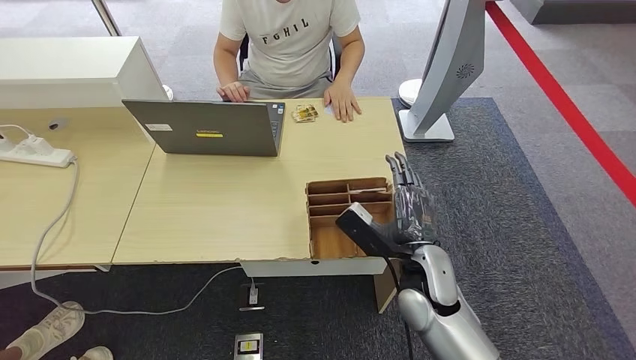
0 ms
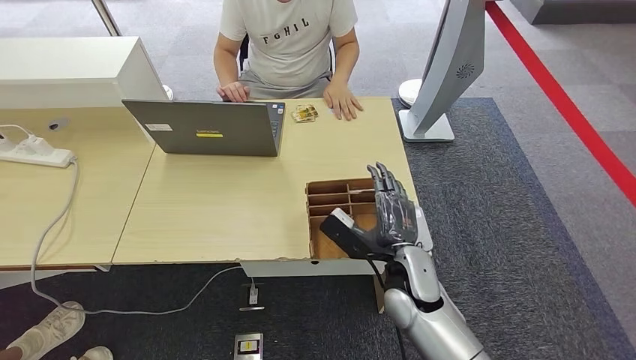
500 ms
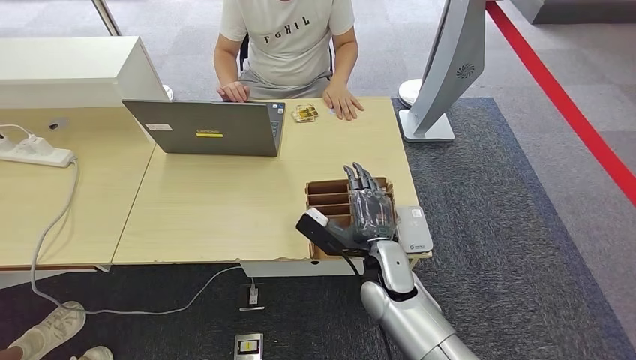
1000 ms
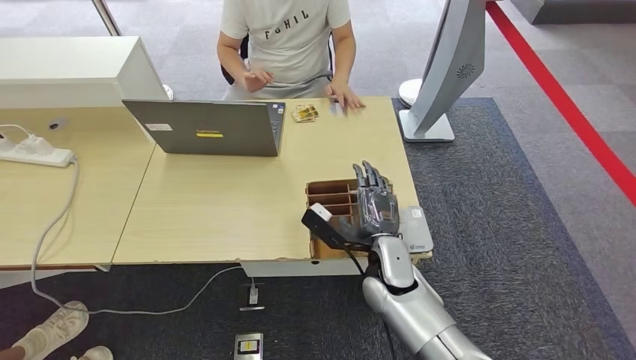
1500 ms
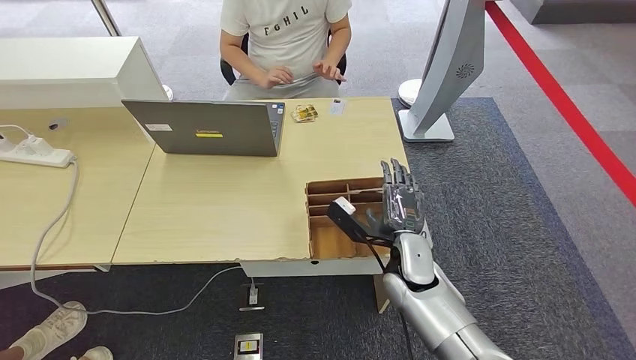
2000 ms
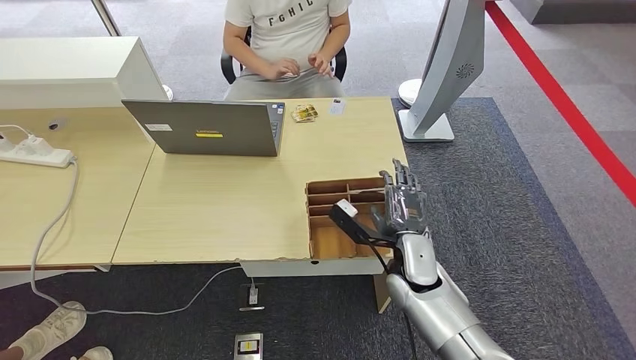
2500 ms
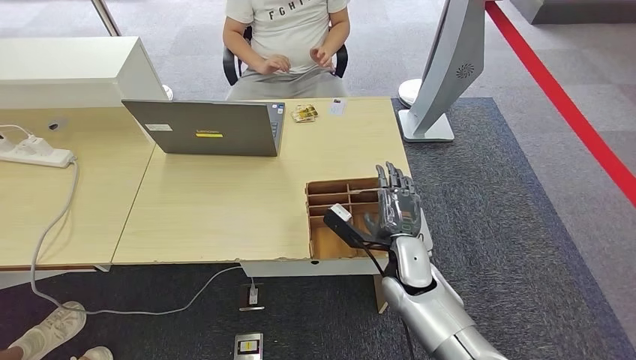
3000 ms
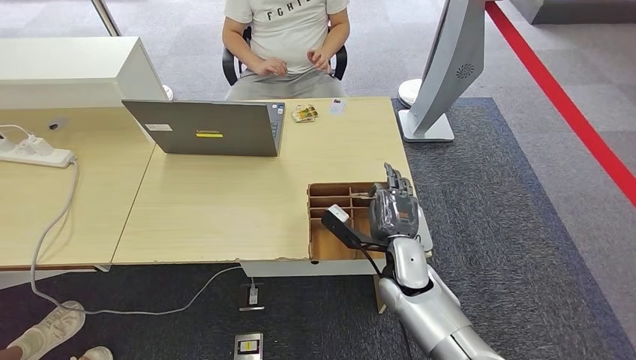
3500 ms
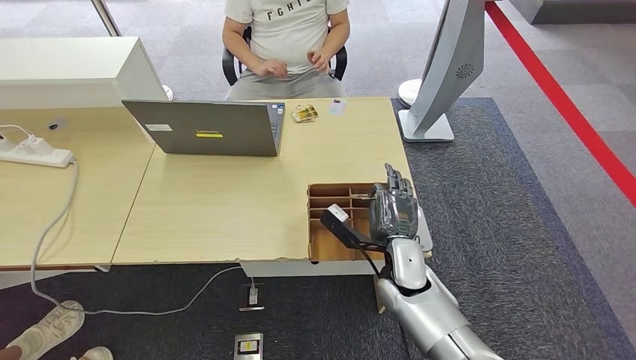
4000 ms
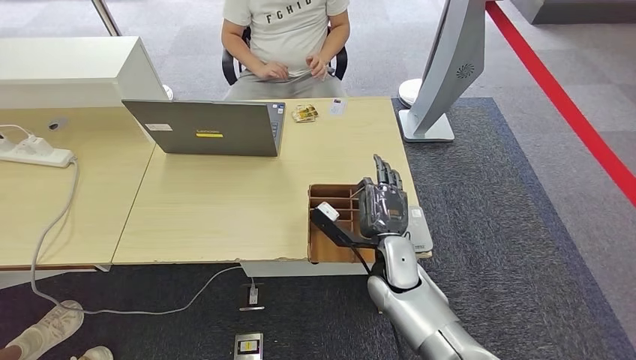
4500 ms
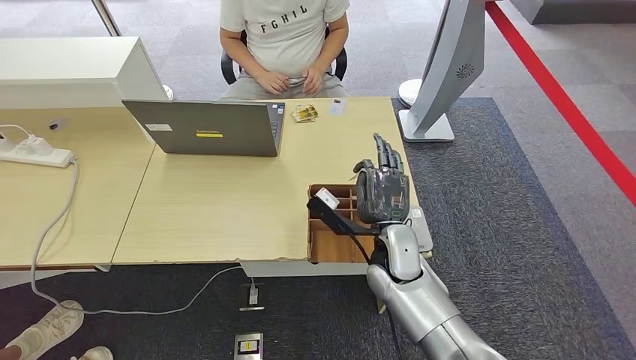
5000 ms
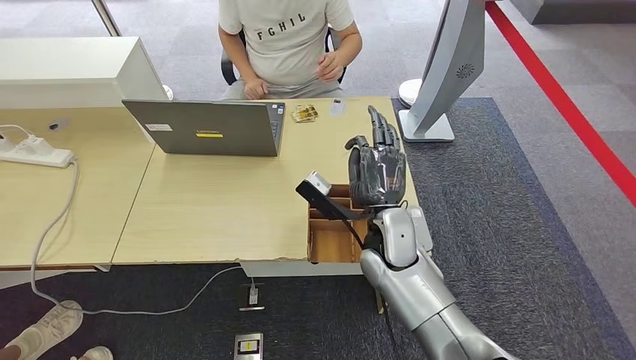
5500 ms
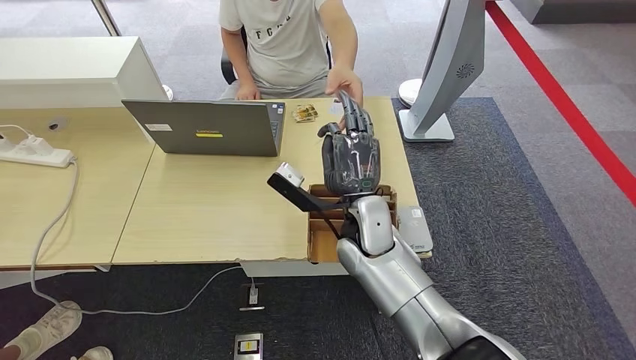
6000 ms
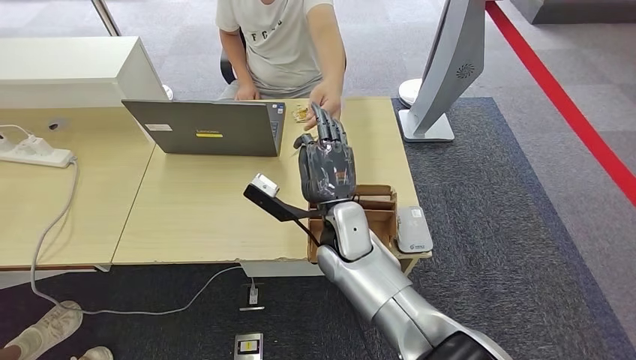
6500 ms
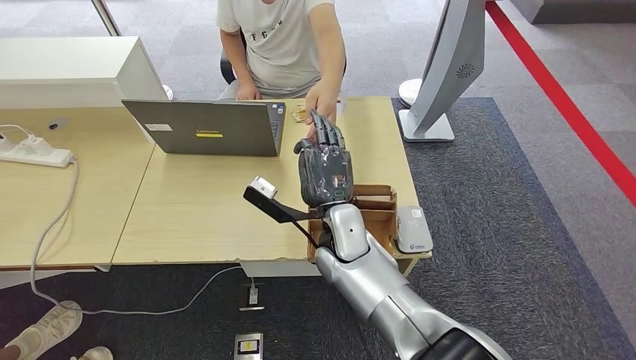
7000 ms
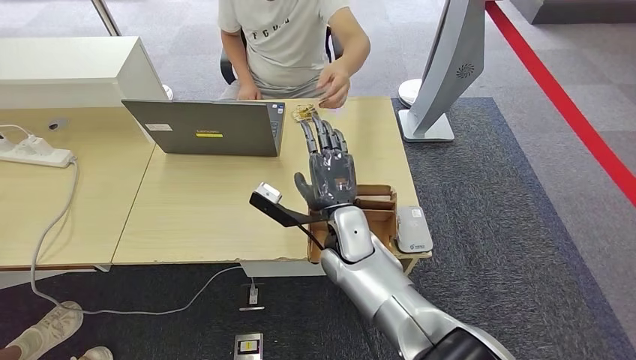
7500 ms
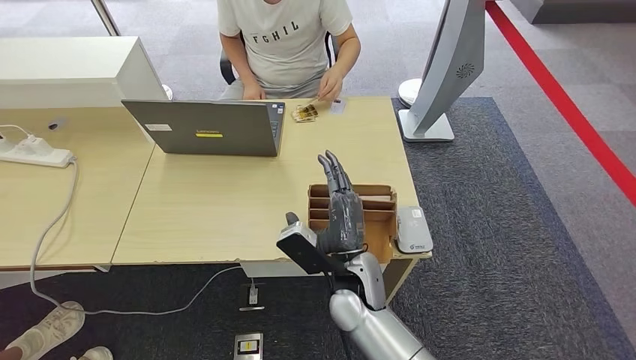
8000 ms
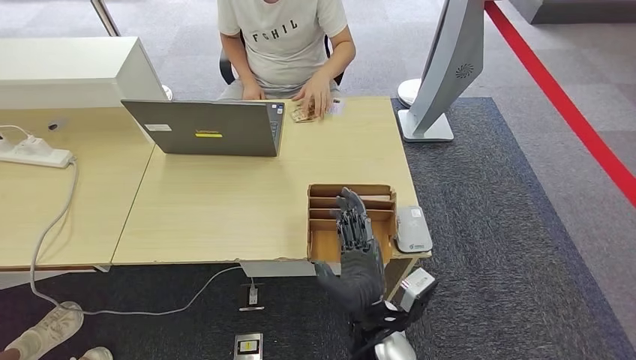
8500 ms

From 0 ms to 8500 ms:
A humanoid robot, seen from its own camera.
Step, from 4000 ms to 5500 ms: Pick up the room key from the key card box.
Step, from 6500 ms to 8500 ms: Hand the room key to the person.
From 0 ms to 2000 ms: The right hand moves forward, approximately 5 cm.
From 2000 ms to 4000 ms: There are only small adjustments of the hands.
From 4000 ms to 6500 ms: The right hand shifts about 15 cm to the left and upward.
From 6500 ms to 8500 ms: The right hand goes roughly 15 cm backward and downward.
